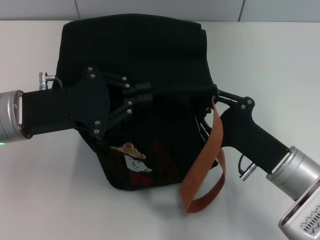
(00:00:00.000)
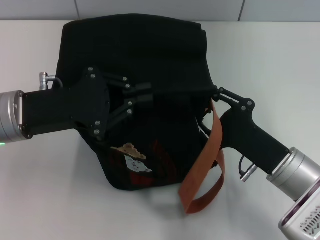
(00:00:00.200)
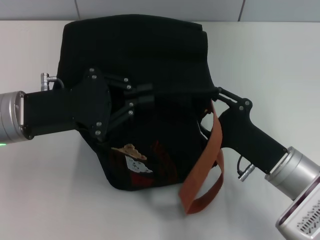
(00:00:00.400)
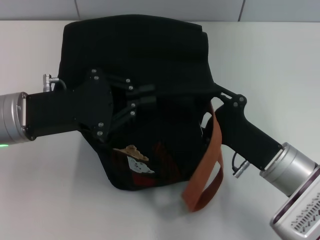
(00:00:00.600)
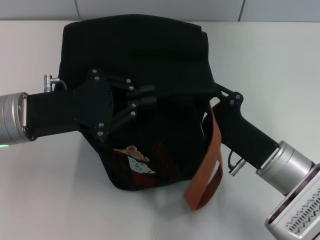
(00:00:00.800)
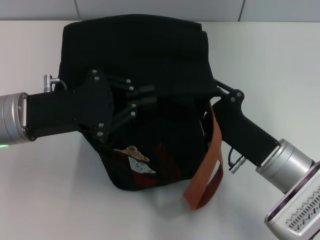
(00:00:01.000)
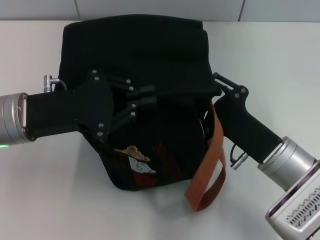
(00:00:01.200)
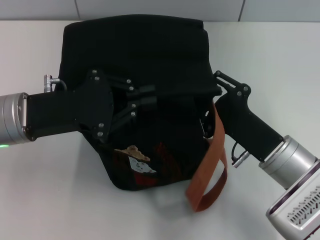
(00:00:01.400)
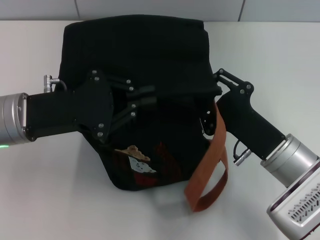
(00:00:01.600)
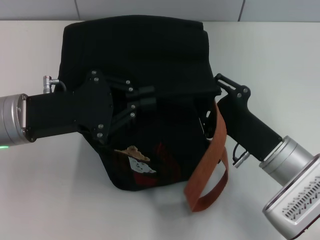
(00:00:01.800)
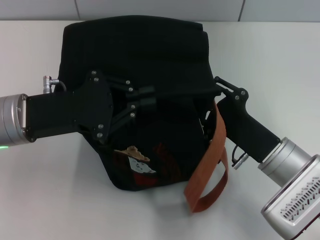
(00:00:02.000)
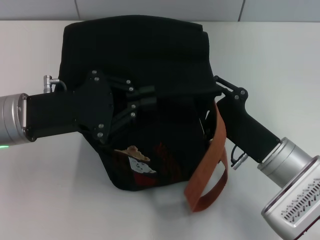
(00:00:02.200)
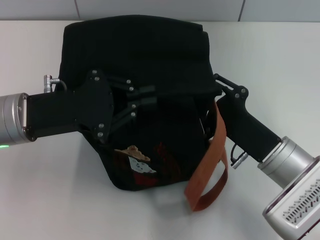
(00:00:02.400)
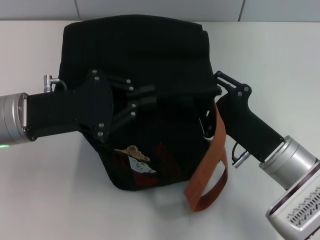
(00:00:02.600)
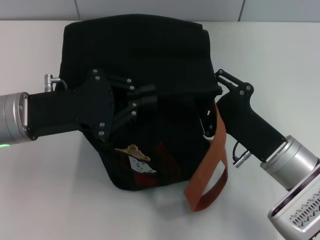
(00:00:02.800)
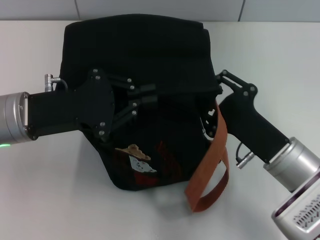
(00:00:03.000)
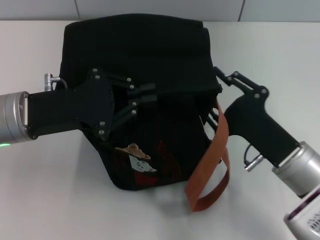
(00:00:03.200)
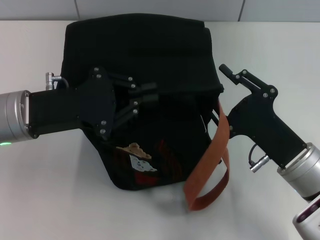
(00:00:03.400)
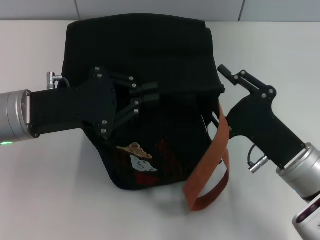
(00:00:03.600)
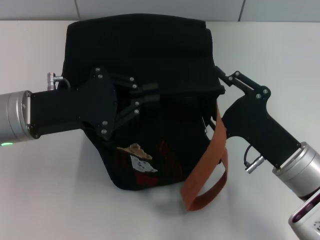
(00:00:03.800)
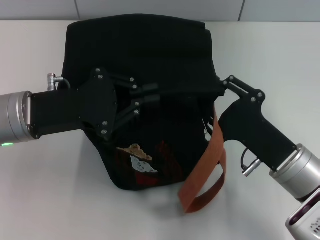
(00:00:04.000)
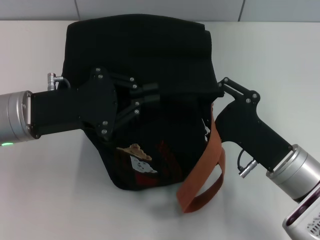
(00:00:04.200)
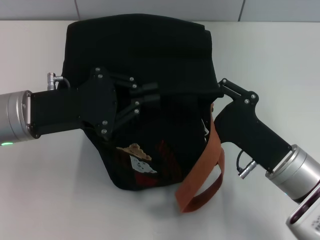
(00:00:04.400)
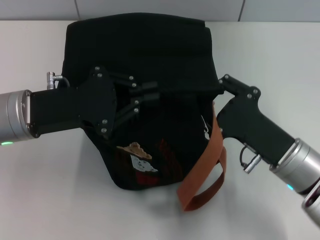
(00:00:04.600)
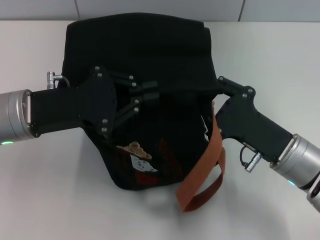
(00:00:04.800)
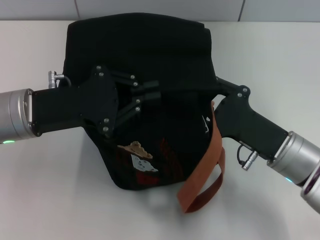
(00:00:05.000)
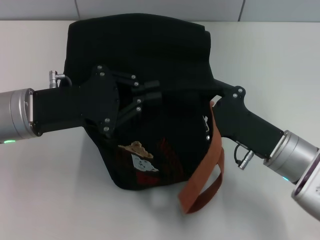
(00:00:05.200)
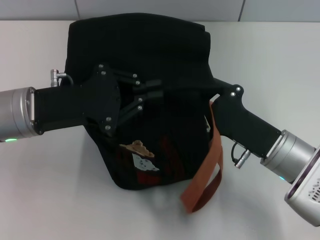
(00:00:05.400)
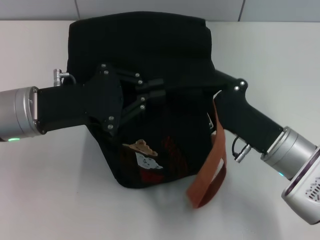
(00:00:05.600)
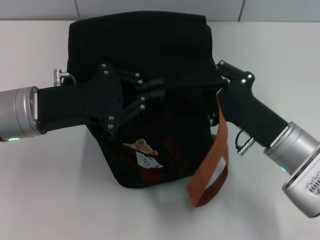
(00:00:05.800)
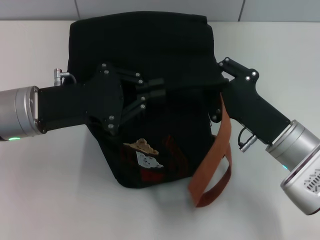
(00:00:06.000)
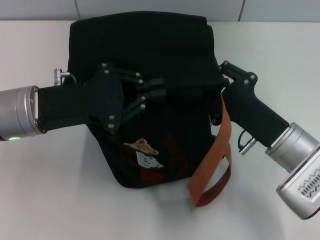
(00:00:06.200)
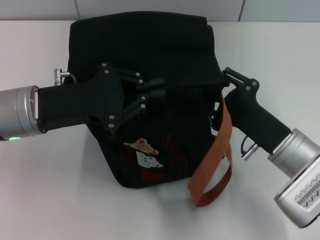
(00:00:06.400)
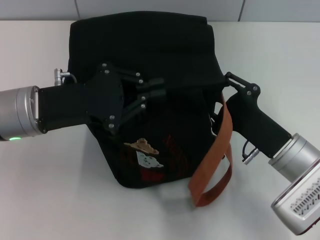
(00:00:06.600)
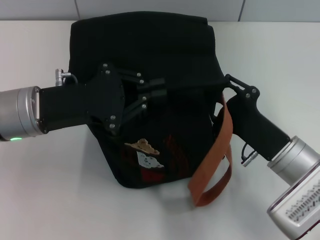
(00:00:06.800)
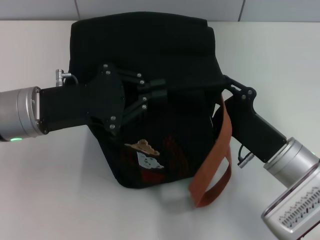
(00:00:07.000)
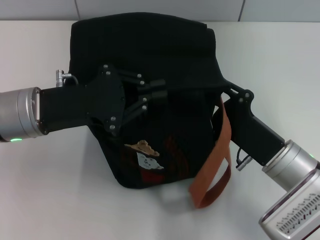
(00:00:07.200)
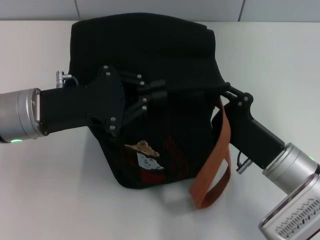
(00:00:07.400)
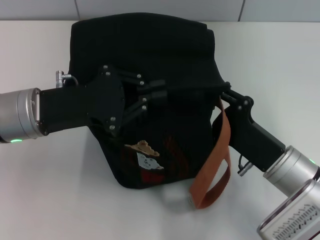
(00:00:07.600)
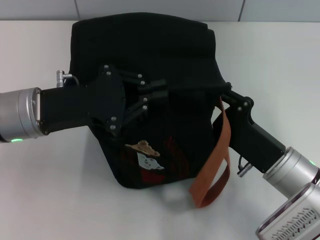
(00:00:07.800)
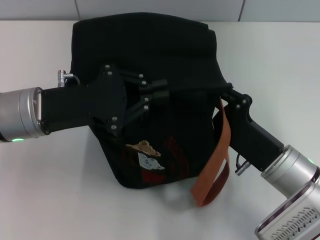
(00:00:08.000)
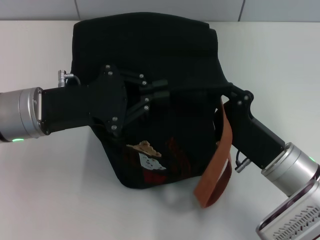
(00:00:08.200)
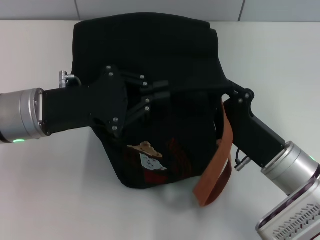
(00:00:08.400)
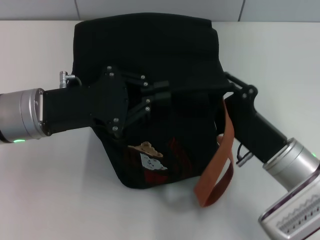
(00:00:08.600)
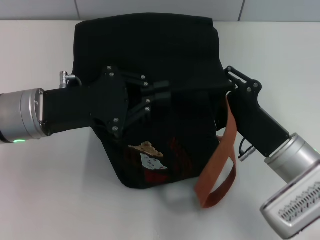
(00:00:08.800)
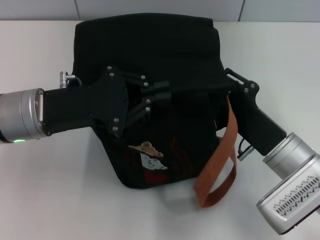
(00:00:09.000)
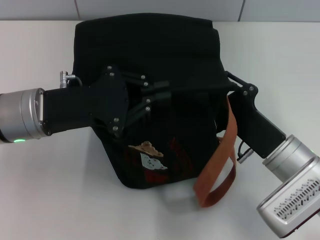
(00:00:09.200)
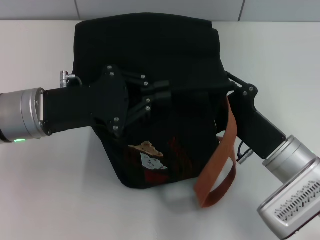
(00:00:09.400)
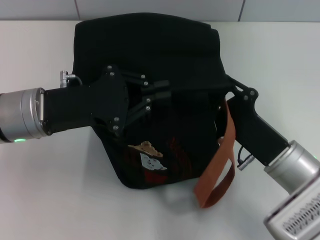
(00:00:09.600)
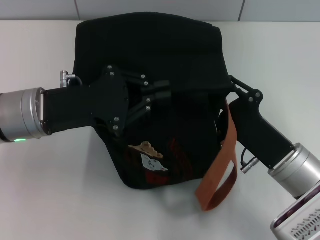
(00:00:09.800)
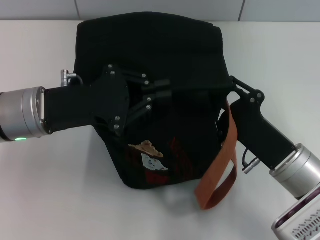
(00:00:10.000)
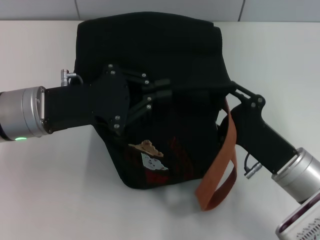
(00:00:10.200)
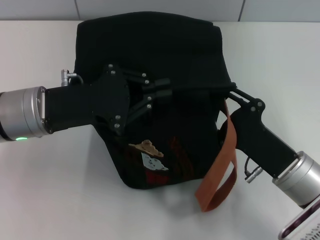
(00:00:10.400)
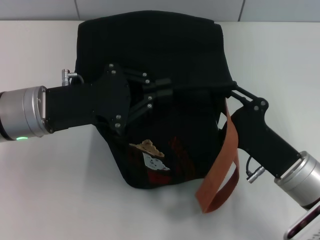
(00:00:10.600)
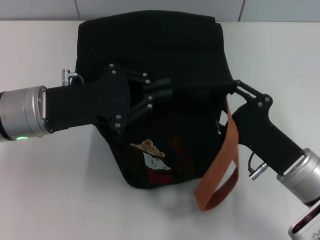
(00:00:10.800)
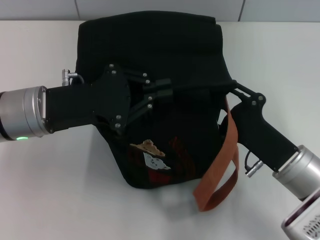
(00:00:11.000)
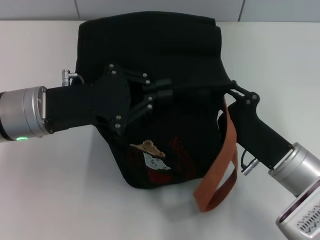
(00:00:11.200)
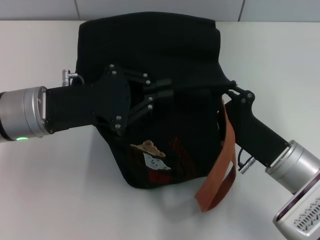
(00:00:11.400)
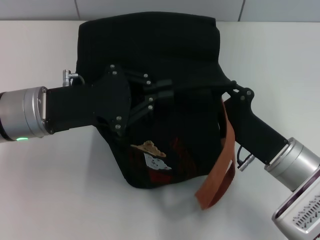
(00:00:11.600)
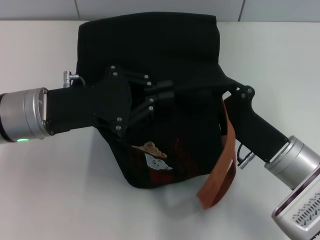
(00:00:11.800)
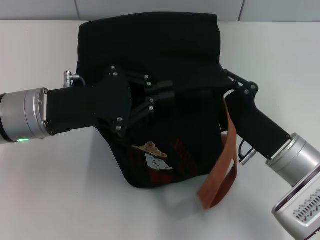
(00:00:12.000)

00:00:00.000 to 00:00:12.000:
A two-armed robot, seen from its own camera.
00:00:00.000 to 00:00:01.600: The right gripper opens up.
00:00:01.600 to 00:00:03.000: Both grippers stay about where they are.
00:00:03.000 to 00:00:04.400: The grippers move only a little.
00:00:04.400 to 00:00:06.000: There are only small adjustments of the grippers.
00:00:07.600 to 00:00:12.000: The grippers move only a little.

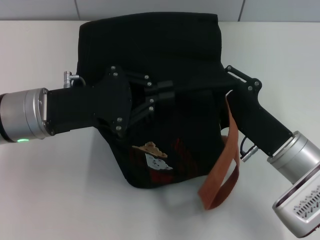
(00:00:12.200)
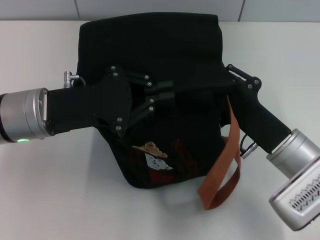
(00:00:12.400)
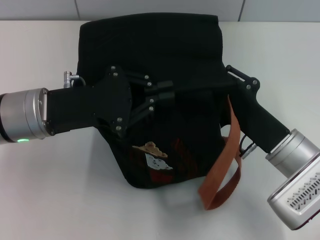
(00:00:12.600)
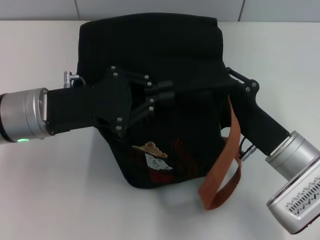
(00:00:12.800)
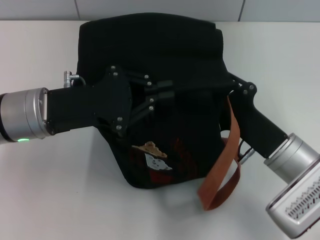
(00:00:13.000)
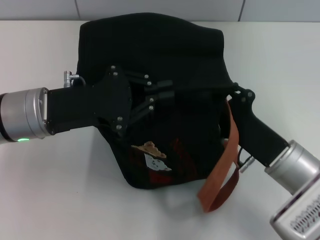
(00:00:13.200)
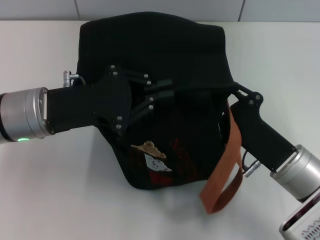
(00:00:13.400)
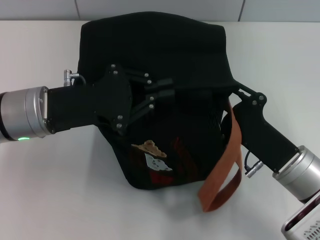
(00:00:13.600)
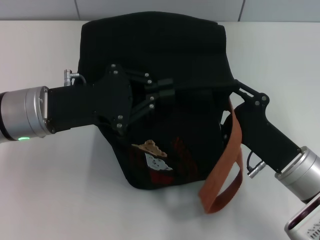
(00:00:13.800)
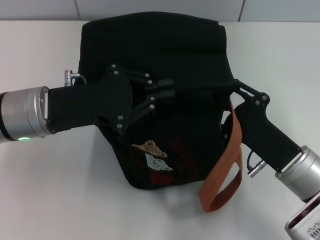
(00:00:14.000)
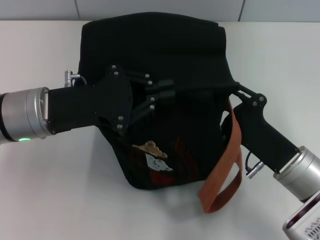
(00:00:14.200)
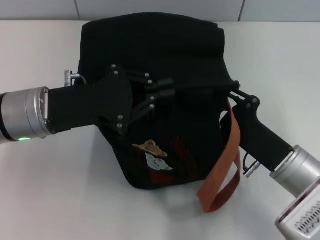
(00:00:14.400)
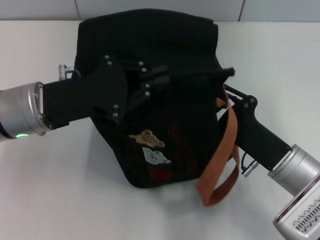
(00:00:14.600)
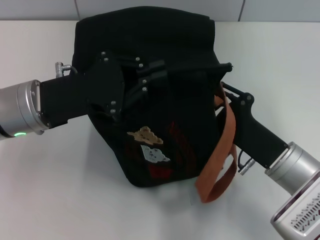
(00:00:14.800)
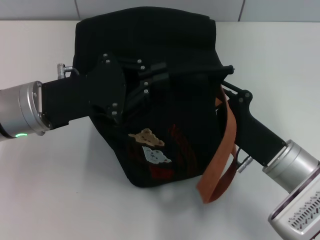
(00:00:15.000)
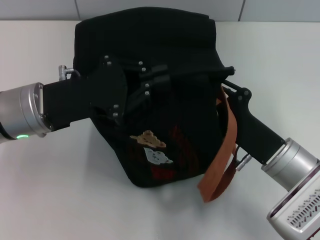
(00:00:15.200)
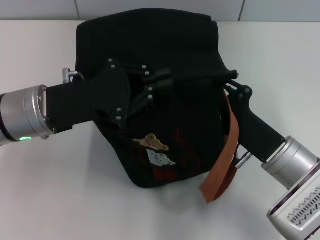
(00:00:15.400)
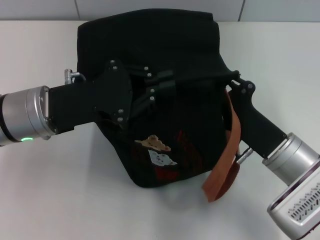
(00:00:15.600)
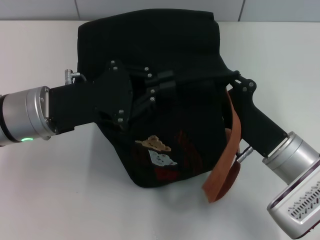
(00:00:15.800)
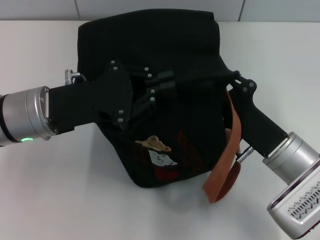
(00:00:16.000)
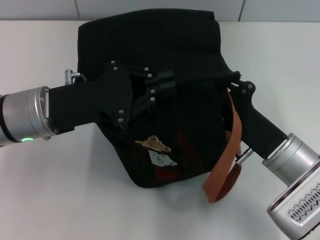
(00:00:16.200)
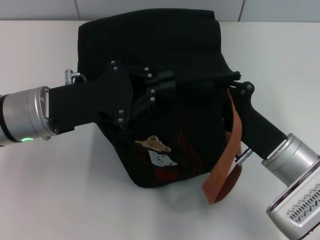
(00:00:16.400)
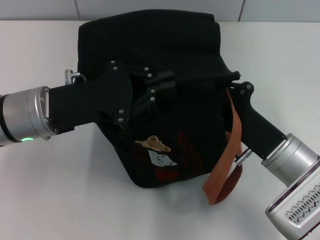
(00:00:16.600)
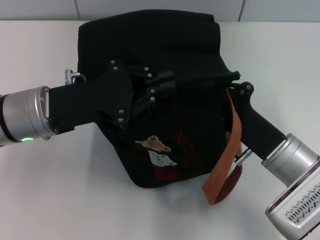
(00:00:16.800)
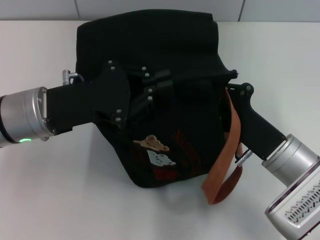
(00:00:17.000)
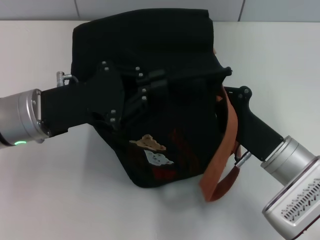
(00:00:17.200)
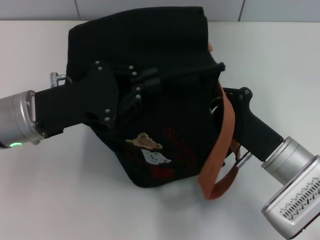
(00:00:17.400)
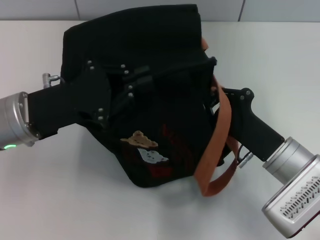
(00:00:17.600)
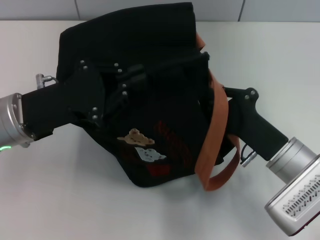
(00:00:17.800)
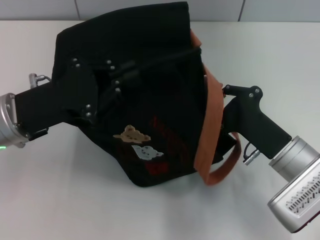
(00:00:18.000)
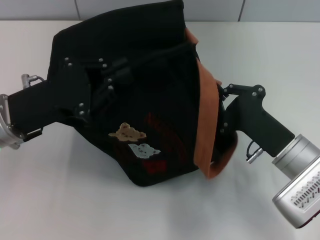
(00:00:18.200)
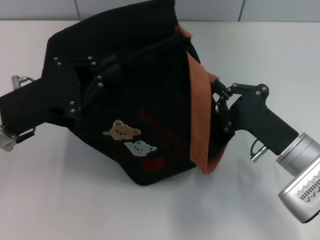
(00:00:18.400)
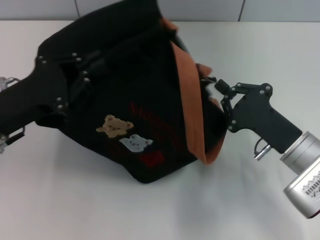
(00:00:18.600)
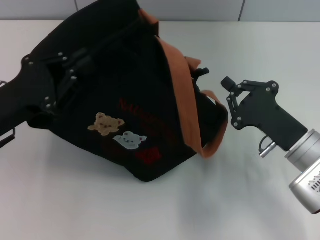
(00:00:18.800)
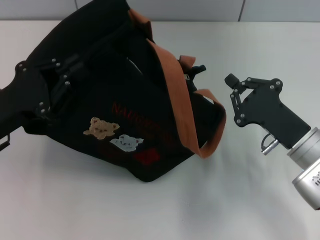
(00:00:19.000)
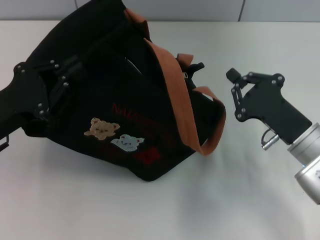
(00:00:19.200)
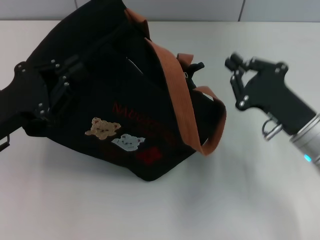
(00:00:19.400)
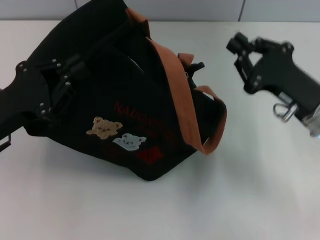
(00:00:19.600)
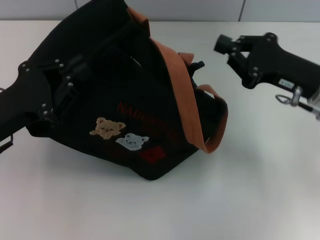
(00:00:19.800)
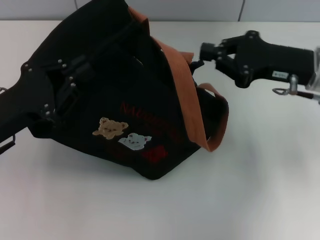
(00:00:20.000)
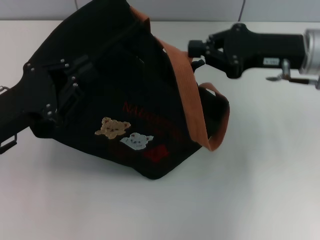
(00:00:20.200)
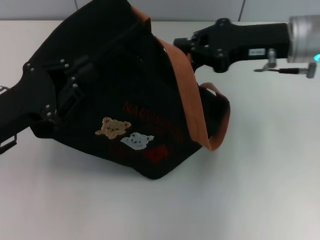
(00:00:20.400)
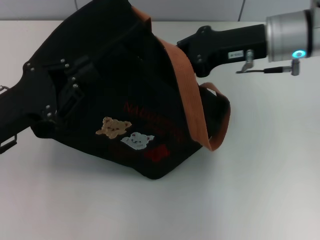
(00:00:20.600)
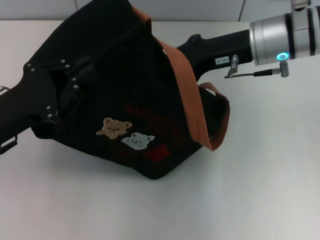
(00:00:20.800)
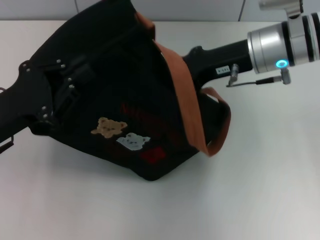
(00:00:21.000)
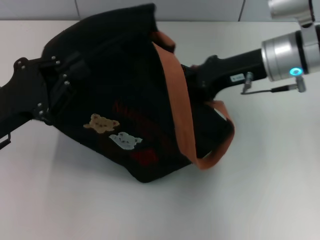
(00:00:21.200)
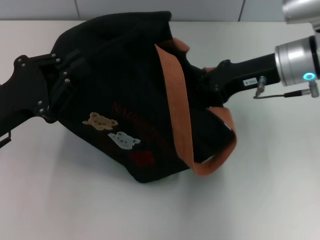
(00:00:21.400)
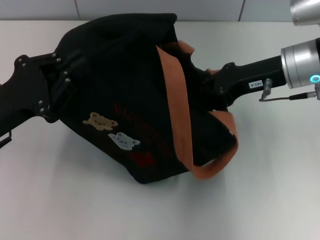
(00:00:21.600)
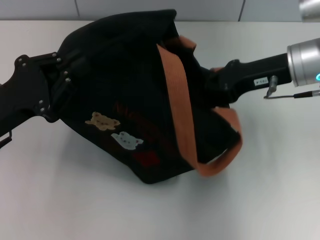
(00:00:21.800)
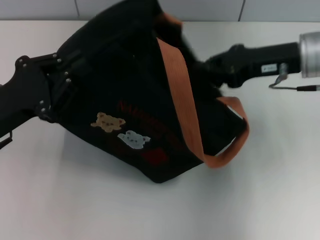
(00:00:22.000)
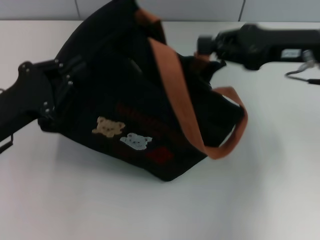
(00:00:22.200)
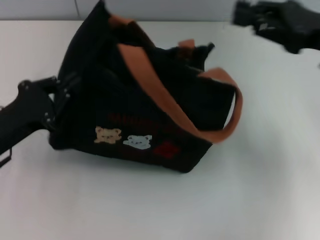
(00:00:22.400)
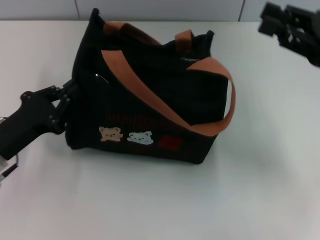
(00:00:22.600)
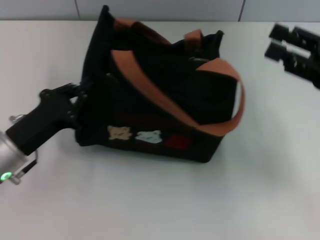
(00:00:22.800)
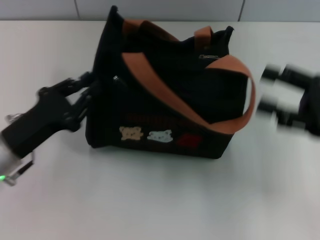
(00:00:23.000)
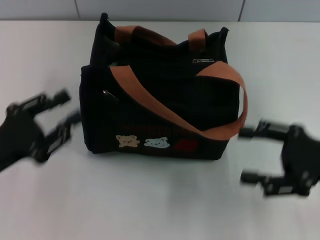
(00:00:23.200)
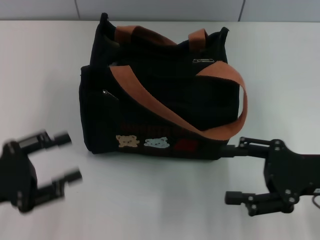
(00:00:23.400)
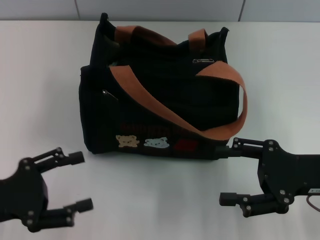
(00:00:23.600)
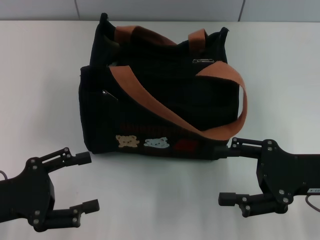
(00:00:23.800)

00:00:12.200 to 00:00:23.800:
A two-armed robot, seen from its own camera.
Step, 00:00:12.200 to 00:00:22.000: Pull open the zipper with your right hand.
Step, 00:00:22.200 to 00:00:23.000: Grab the bag with your left hand.
00:00:12.200 to 00:00:15.000: The grippers move only a little.
00:00:15.000 to 00:00:16.600: Neither gripper changes place.
00:00:18.000 to 00:00:19.400: The left gripper shifts by about 5 cm.
00:00:19.400 to 00:00:21.000: The right gripper shifts some 15 cm forward, upward and to the left.
00:00:21.000 to 00:00:22.400: The right gripper is displaced to the right and backward by roughly 15 cm.
00:00:22.400 to 00:00:23.800: The right gripper goes about 15 cm backward and downward, and opens. The left gripper is displaced backward by about 5 cm, and opens.
